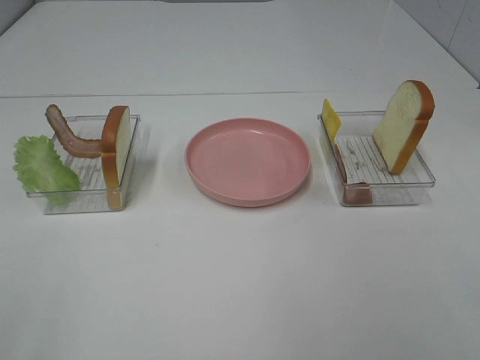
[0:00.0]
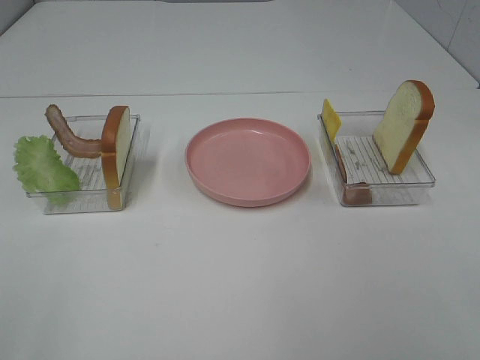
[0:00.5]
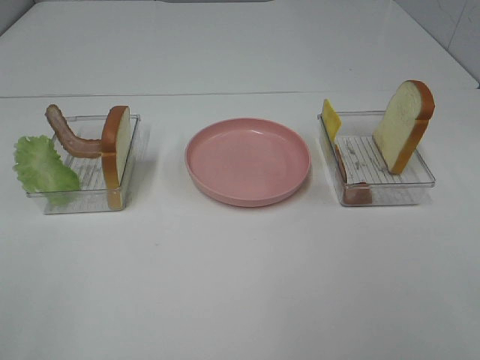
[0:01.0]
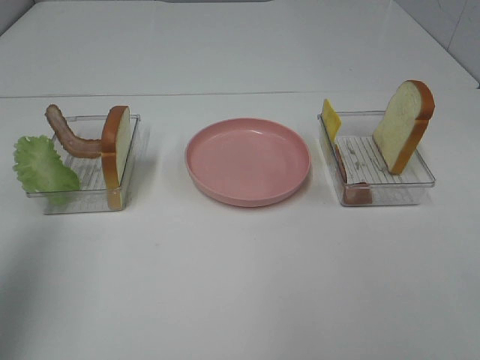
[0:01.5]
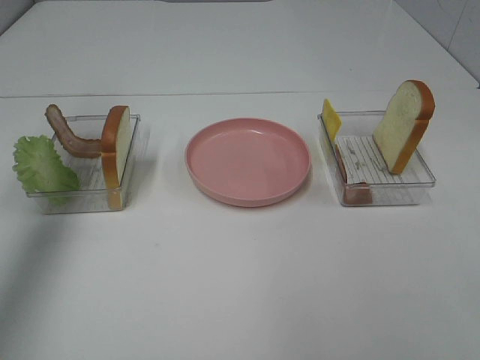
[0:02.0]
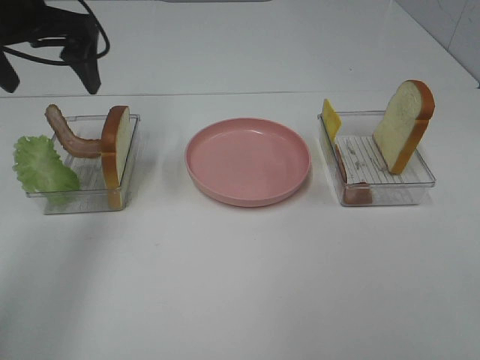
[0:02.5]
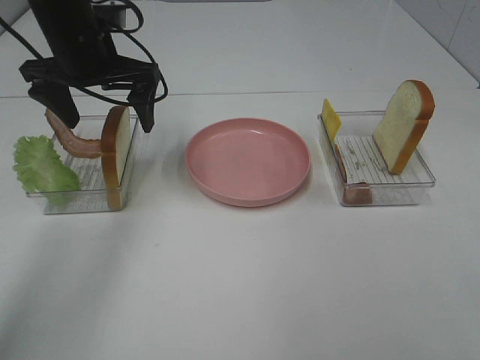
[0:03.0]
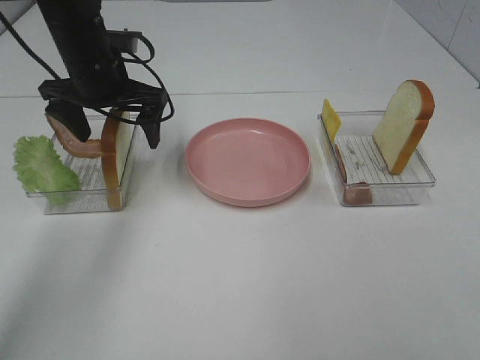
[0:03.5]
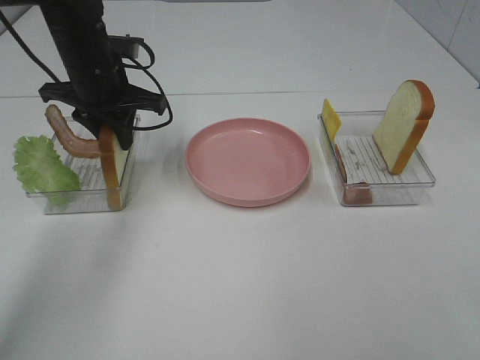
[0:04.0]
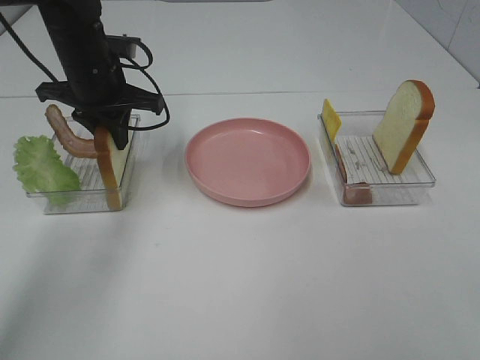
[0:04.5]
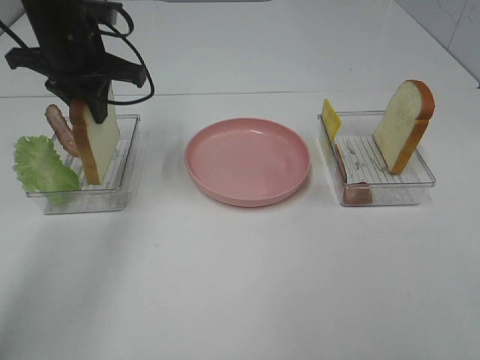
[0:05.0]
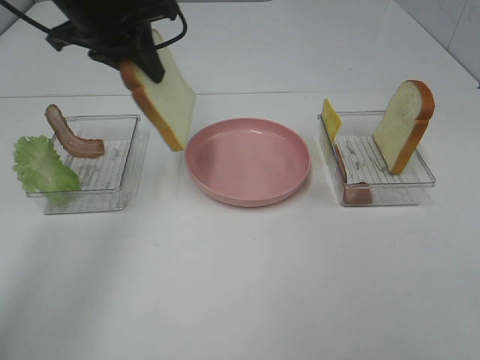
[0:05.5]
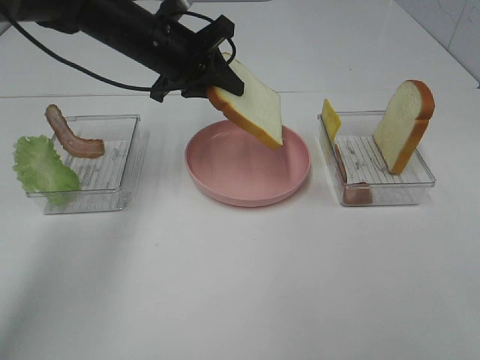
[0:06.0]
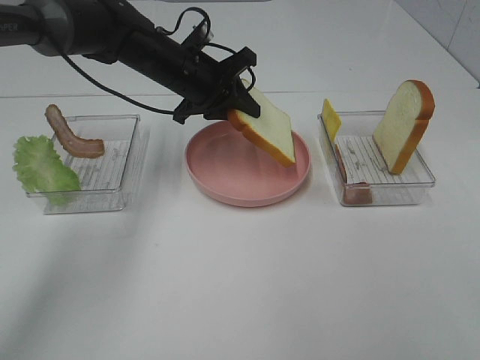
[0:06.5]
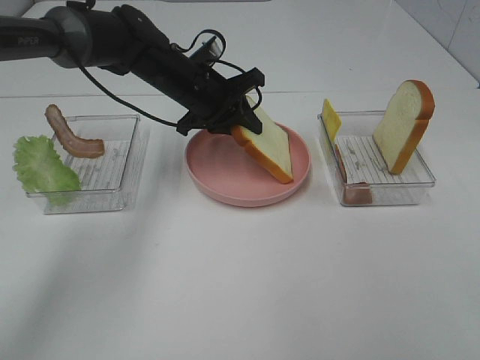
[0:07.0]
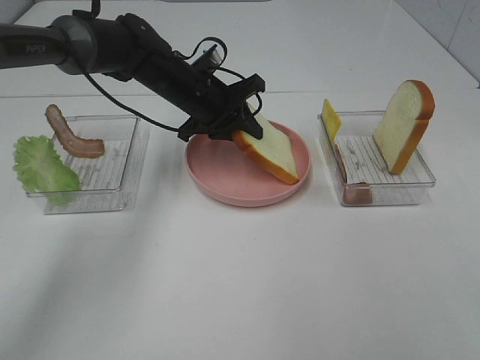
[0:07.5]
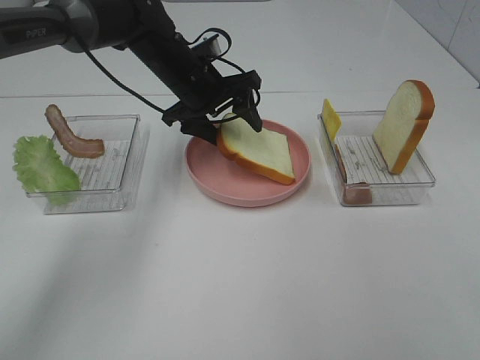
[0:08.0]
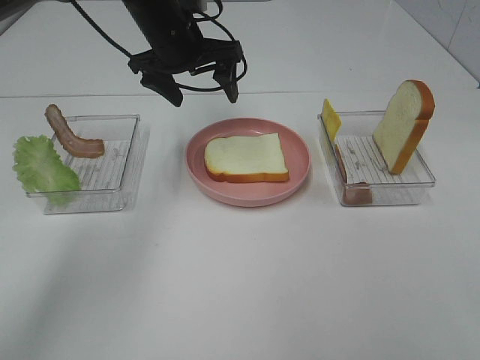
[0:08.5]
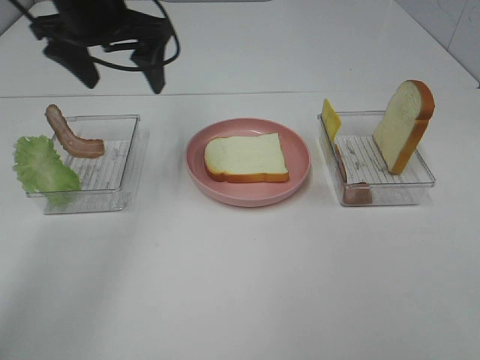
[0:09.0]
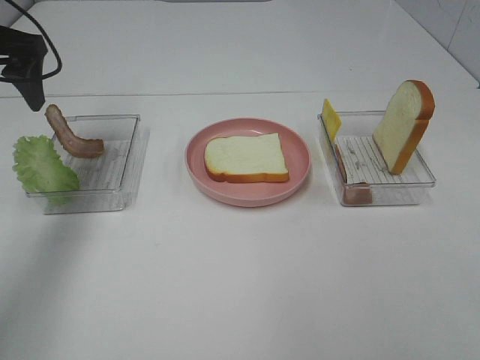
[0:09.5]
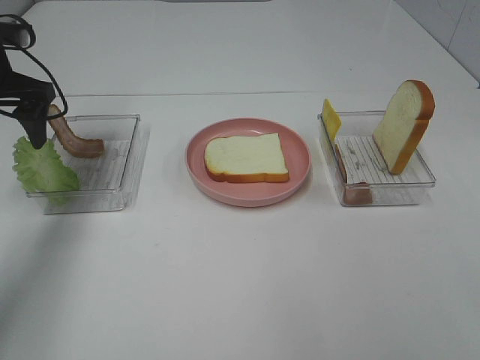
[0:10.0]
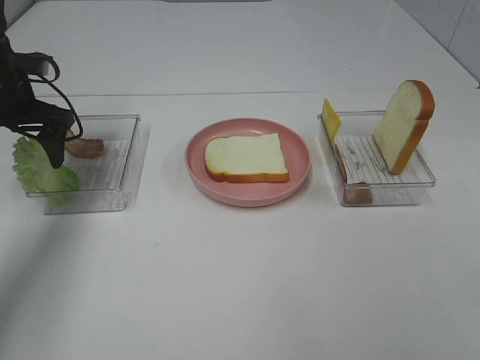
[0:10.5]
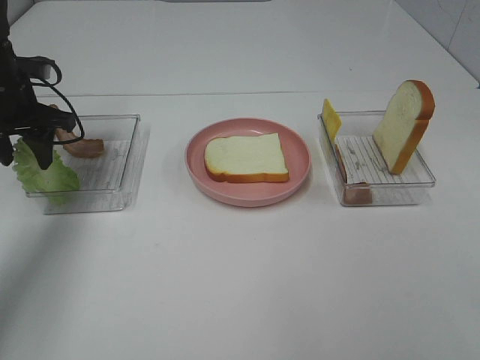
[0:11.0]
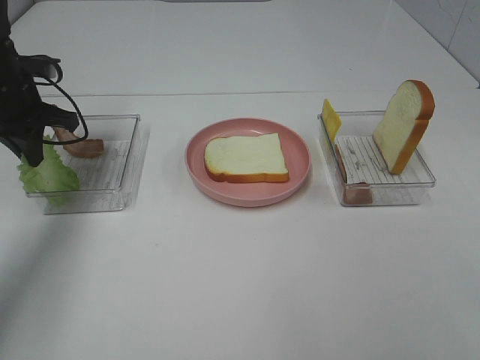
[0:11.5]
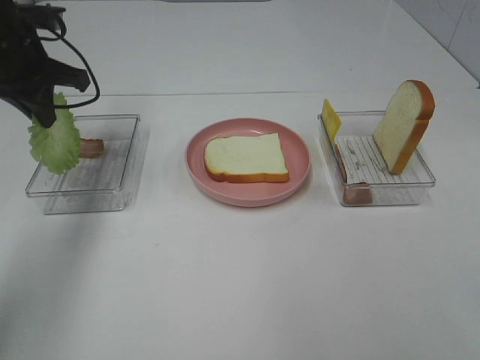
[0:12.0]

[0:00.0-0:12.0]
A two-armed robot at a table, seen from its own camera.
Task of the whole recording: Make sandwiches.
Step, 0:00.0 to 0:04.5: Left hand:grab the bread slice.
Step, 0:05.0 to 0:08.0: Left hand:place the bread slice on the plate.
Step, 0:08.5 to 0:11.5: Left hand:grab the lettuce slice.
0:00.0 to 0:02.0: The left gripper shifts some 35 cm forward.
0:02.0 to 0:04.0: The left gripper travels downward, to the right and forward by approximately 25 cm, and closes its fingers.
0:04.0 to 0:06.0: The left gripper goes approximately 5 cm to the right, and goes upward and returns, some 10 cm each way.
0:06.0 to 0:08.0: The left gripper ends up about 5 cm from where it was, and opens up.
0:08.0 to 0:10.0: The left gripper is displaced to the left by about 20 cm.
0:10.0 to 0:12.0: The left gripper closes its fingers.

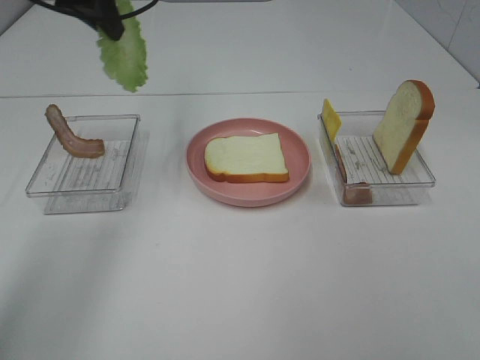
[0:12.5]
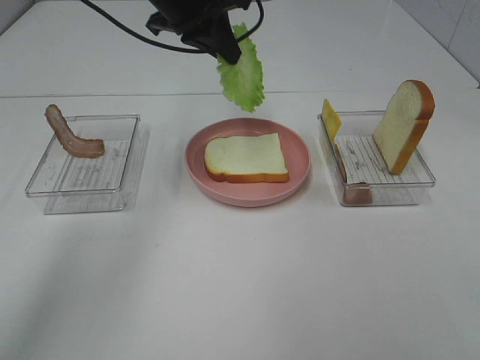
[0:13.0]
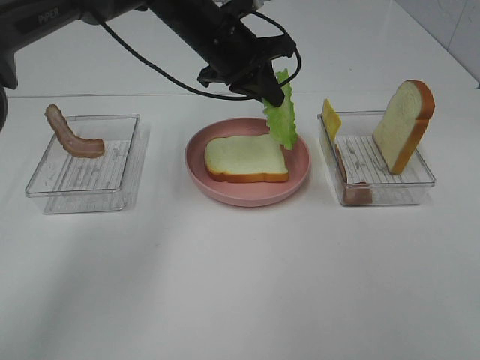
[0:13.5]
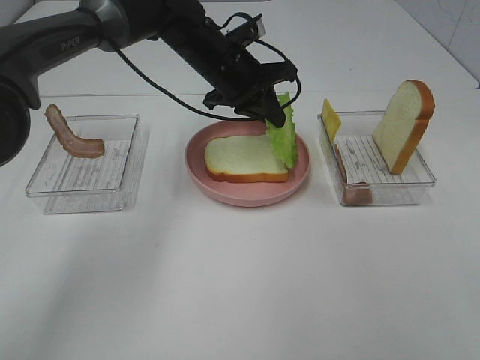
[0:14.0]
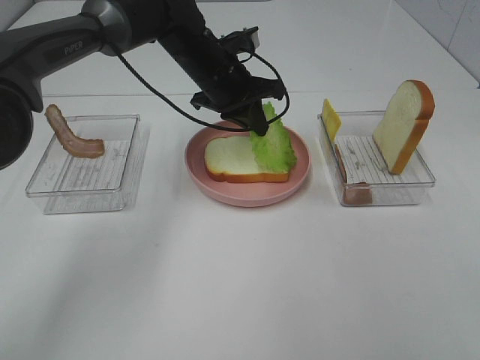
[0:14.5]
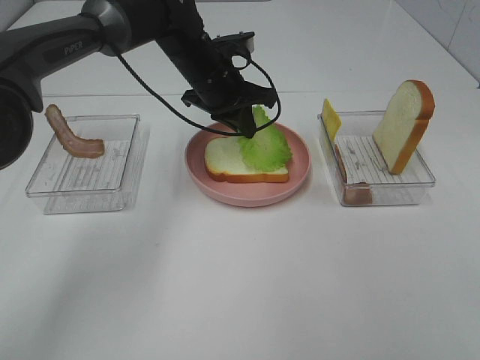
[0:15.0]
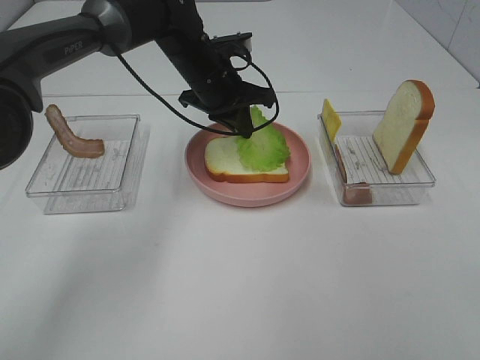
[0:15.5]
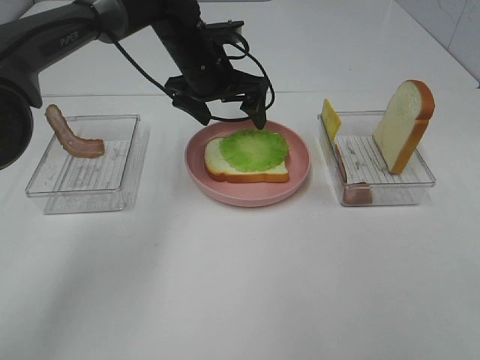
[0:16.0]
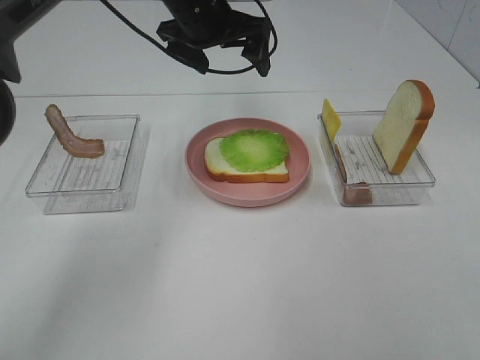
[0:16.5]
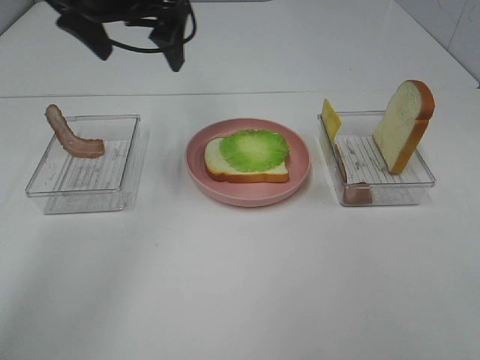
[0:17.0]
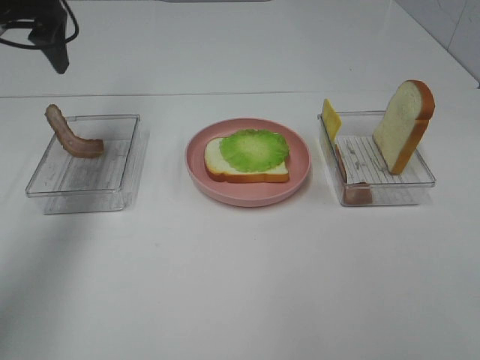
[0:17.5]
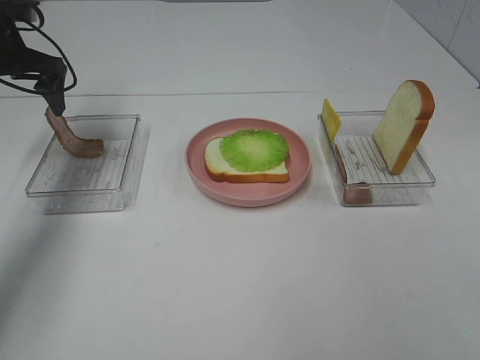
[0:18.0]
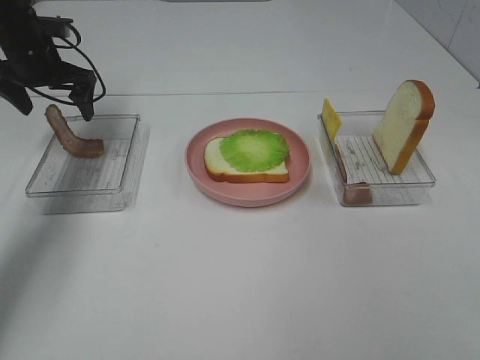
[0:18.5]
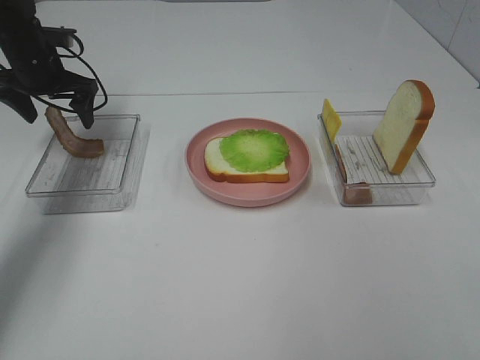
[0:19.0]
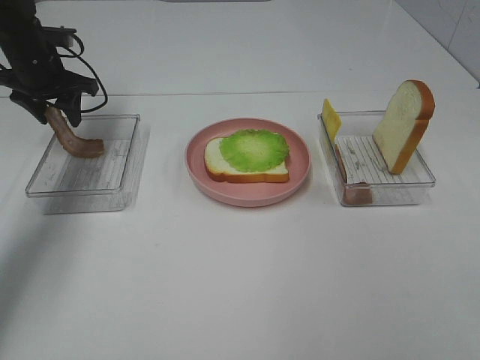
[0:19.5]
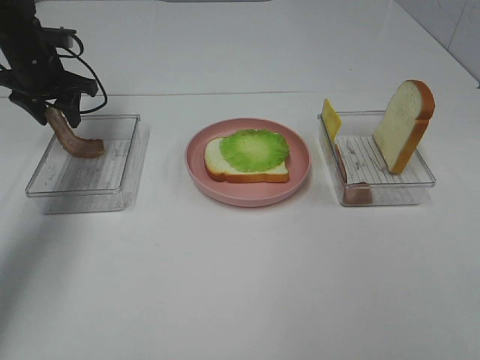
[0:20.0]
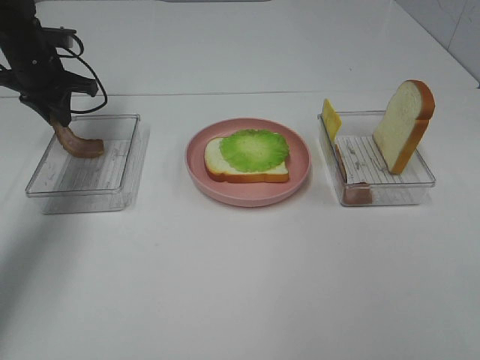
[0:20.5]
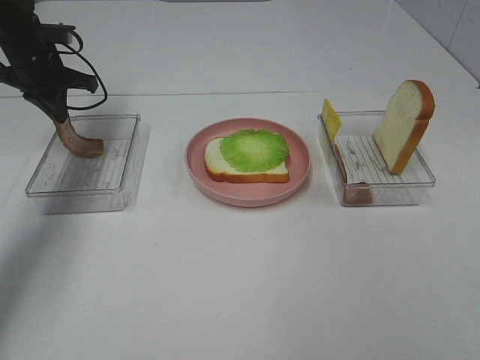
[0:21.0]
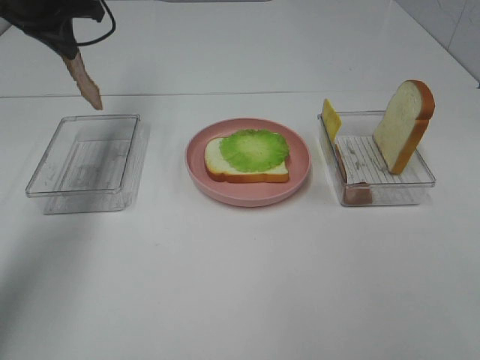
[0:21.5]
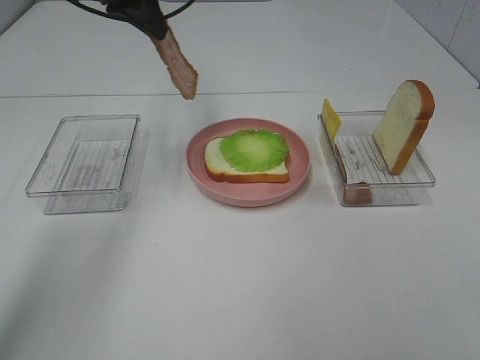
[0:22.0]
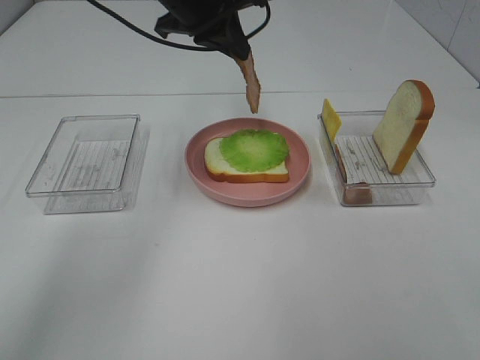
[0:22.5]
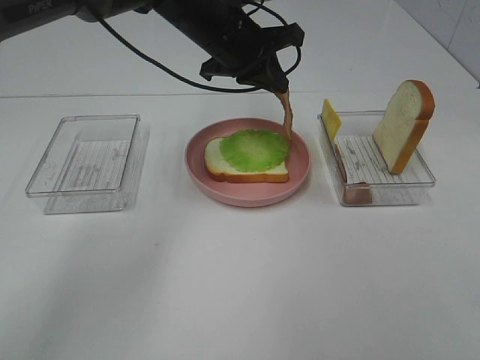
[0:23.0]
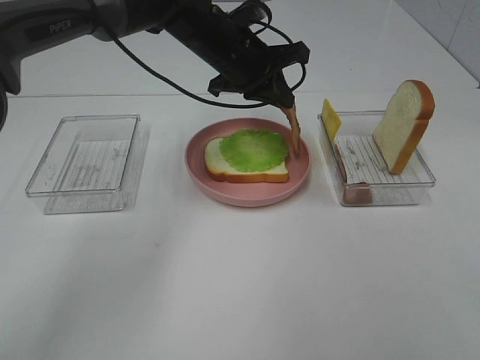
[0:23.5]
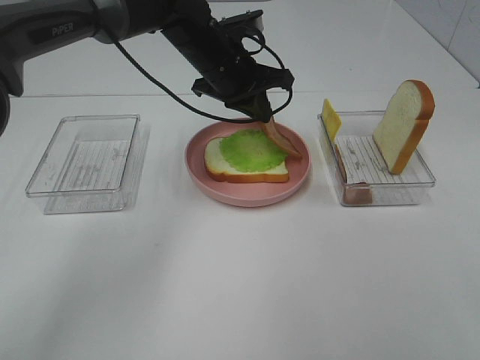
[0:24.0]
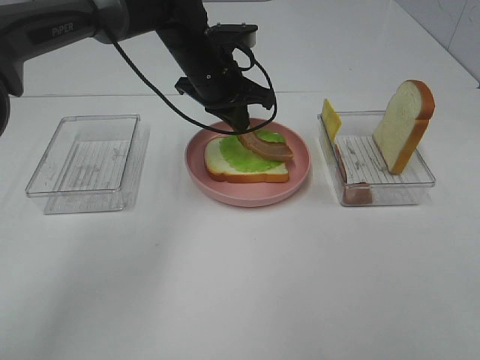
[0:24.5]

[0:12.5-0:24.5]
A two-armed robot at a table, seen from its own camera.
Task of the whole recording: Make sandwiches.
Step, 0:12.5 to 0:15.5: Left hand:place the lettuce slice on the bread slice.
Step, 0:16.0 to 0:20.5: Left hand:grab the bacon.
0:12.5 to 0:14.5: The left gripper travels downward and to the right by roughly 20 cm.
0:14.5 to 0:16.5: The left gripper heads upward, covering some 10 cm, and opens its fingers.
0:16.5 to 0:18.5: The left gripper moves to the left, roughly 25 cm.
0:18.5 to 0:20.5: The left gripper closes.
0:20.5 to 0:22.5: The left gripper heads to the right and upward, covering about 25 cm.
0:22.5 to 0:24.5: The left gripper heads downward, covering roughly 10 cm.

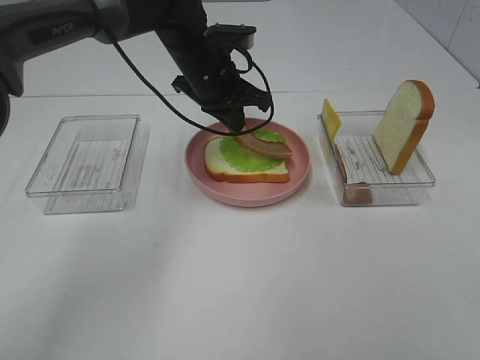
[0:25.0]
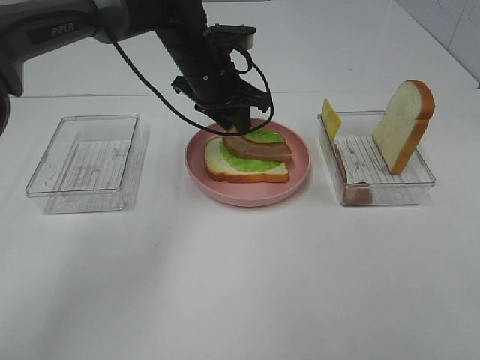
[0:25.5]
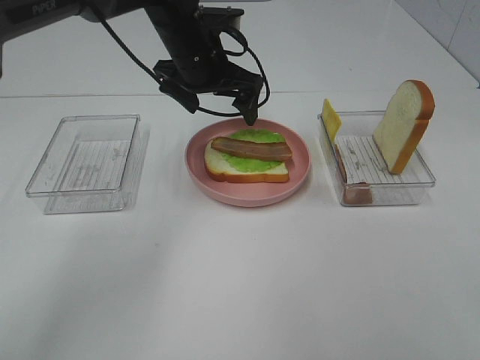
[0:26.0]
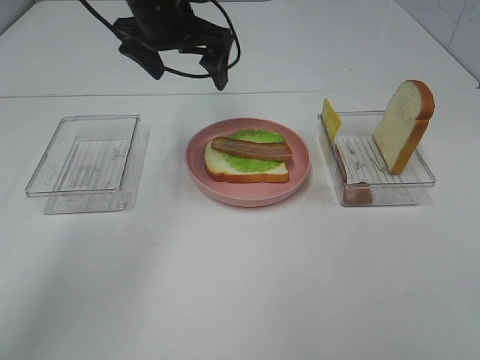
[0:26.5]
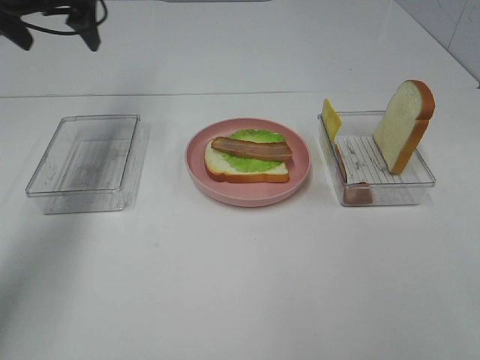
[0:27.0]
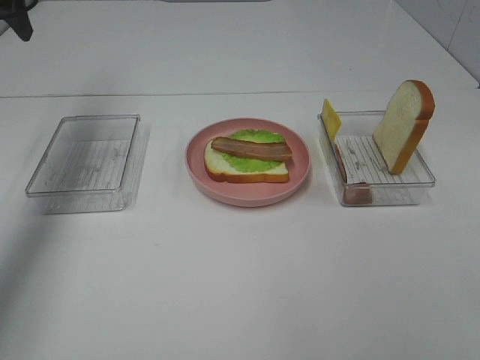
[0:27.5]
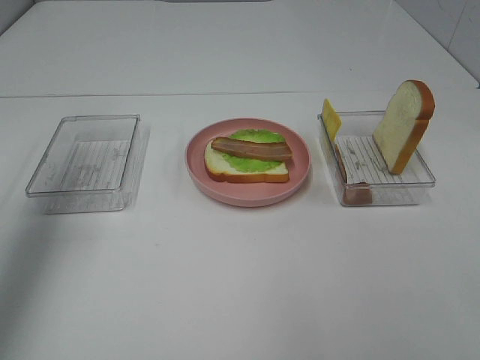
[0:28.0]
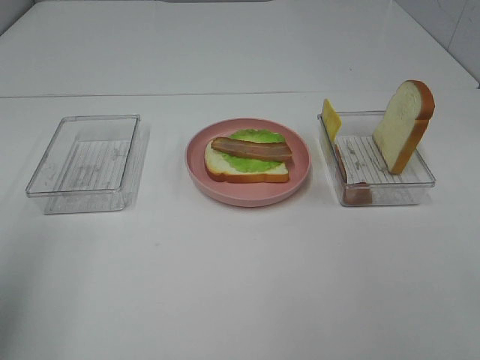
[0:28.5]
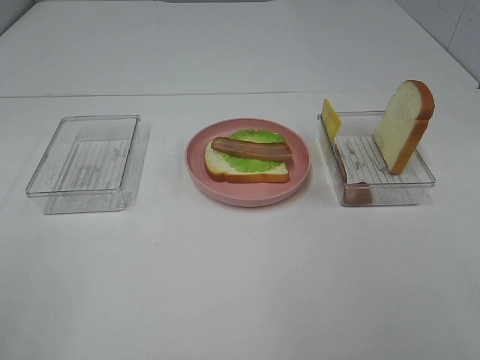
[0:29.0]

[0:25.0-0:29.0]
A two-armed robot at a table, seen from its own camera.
Task of the whole recording: Make sandwiches.
0:25.0 to 0:27.0: The left gripper moves to the left and upward, about 25 cm, and opens its fingers.
0:27.0 to 0:29.0: The left gripper moves backward, roughly 50 cm.
